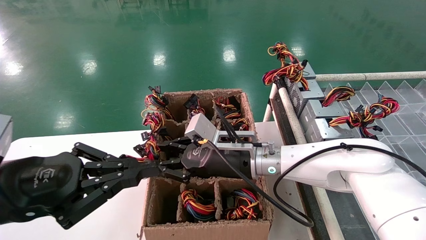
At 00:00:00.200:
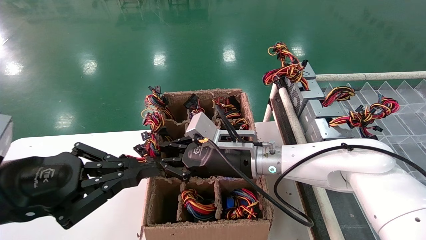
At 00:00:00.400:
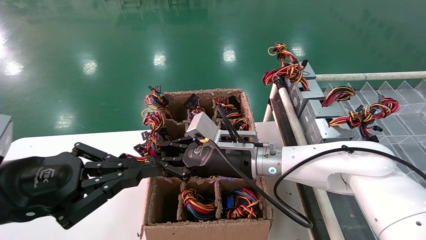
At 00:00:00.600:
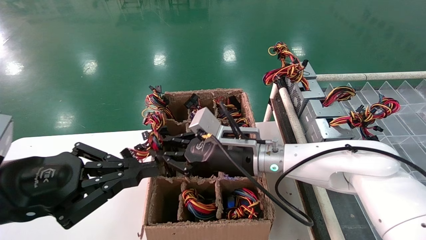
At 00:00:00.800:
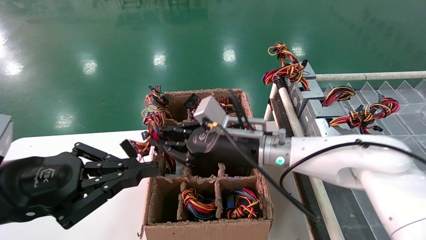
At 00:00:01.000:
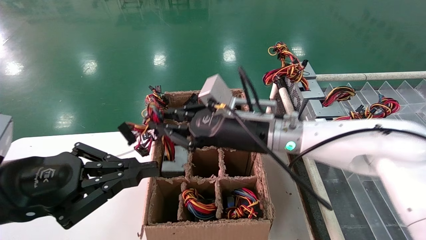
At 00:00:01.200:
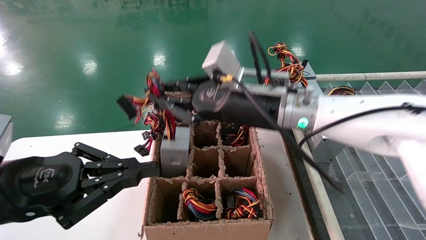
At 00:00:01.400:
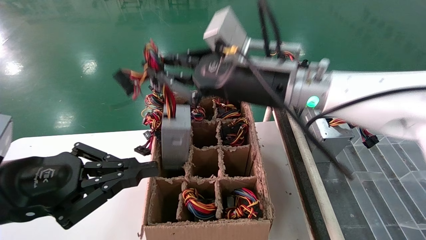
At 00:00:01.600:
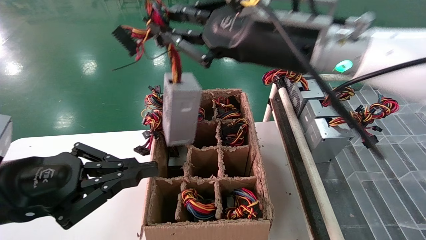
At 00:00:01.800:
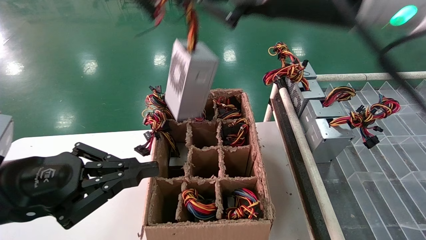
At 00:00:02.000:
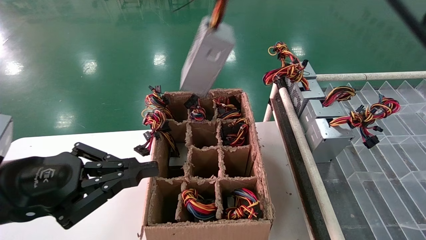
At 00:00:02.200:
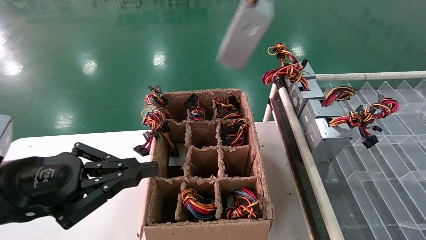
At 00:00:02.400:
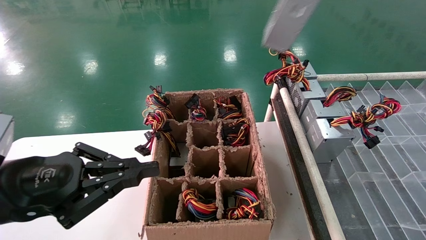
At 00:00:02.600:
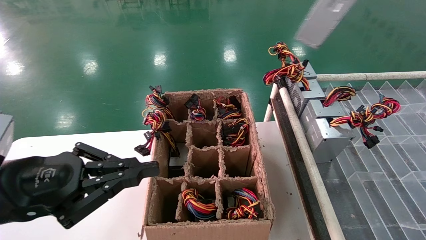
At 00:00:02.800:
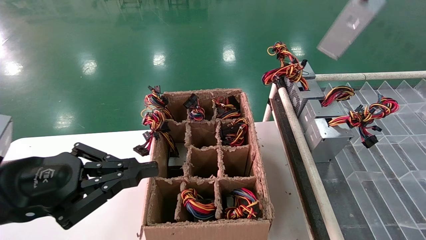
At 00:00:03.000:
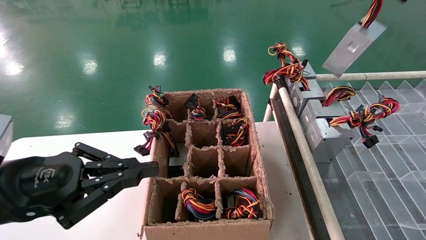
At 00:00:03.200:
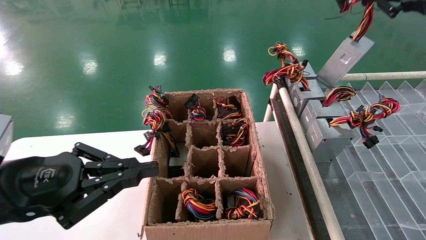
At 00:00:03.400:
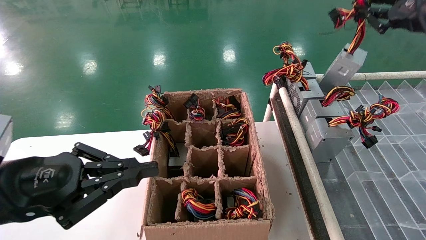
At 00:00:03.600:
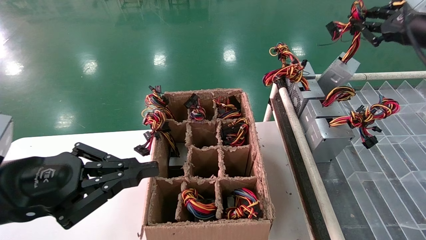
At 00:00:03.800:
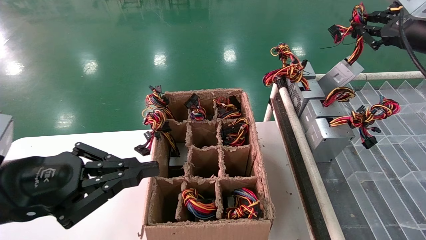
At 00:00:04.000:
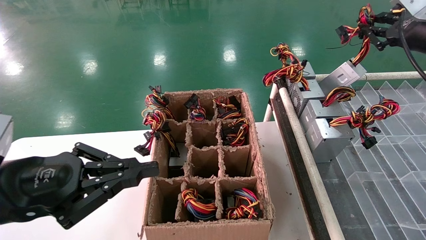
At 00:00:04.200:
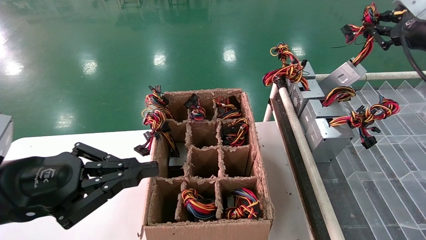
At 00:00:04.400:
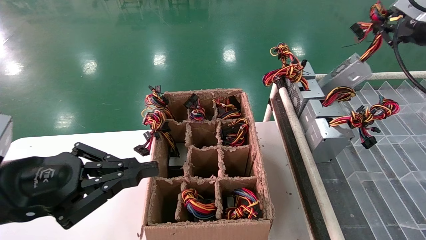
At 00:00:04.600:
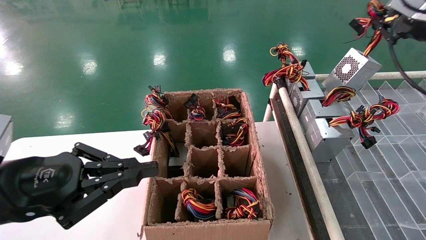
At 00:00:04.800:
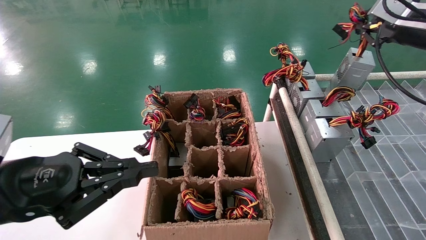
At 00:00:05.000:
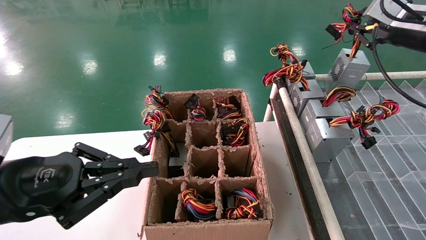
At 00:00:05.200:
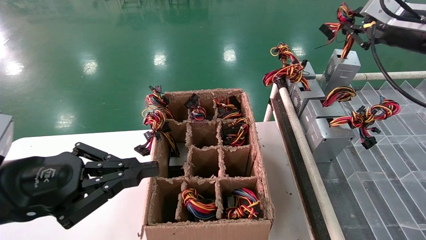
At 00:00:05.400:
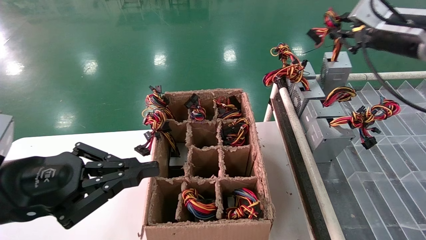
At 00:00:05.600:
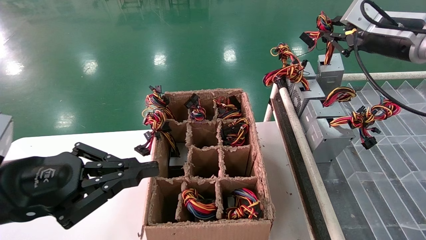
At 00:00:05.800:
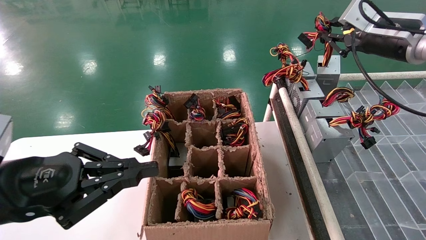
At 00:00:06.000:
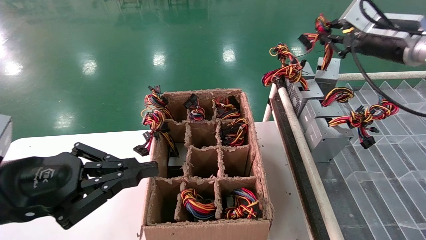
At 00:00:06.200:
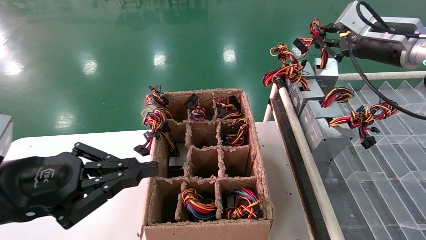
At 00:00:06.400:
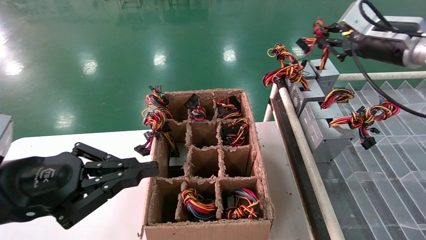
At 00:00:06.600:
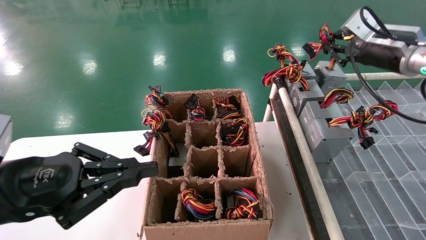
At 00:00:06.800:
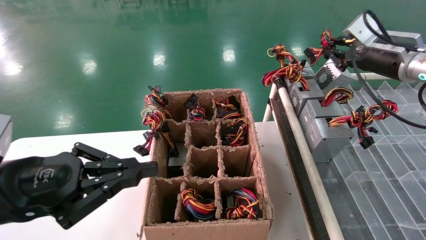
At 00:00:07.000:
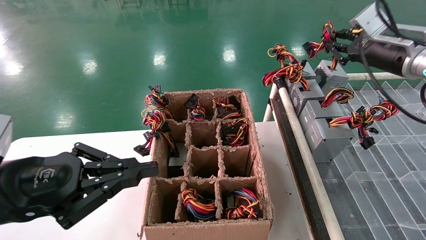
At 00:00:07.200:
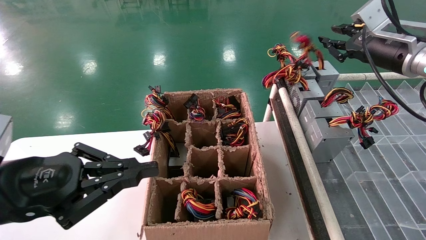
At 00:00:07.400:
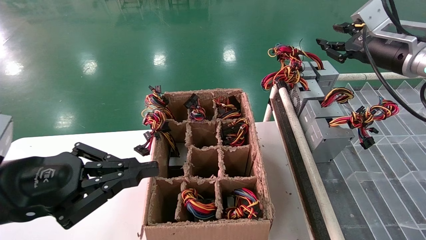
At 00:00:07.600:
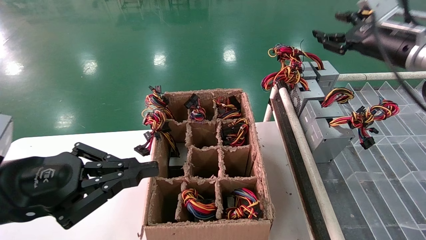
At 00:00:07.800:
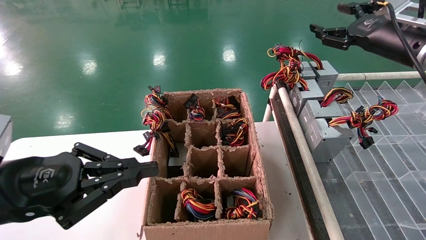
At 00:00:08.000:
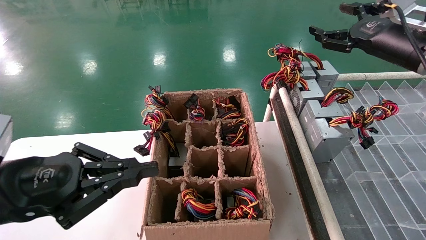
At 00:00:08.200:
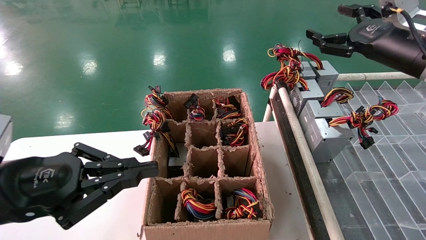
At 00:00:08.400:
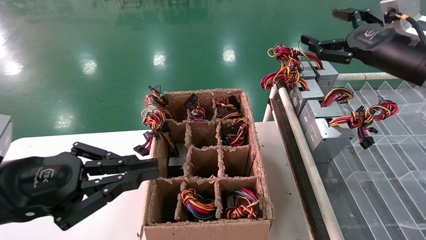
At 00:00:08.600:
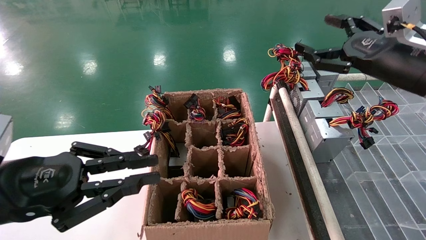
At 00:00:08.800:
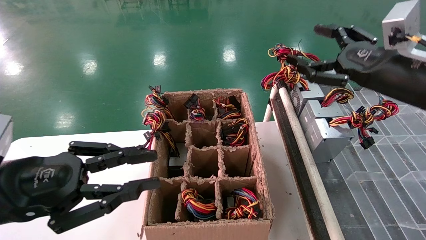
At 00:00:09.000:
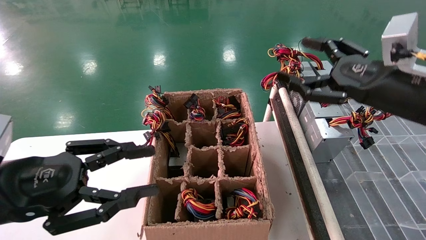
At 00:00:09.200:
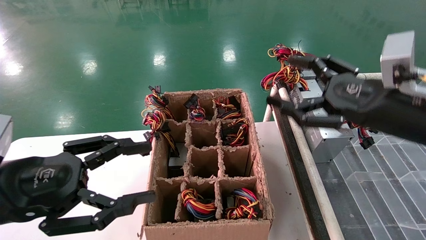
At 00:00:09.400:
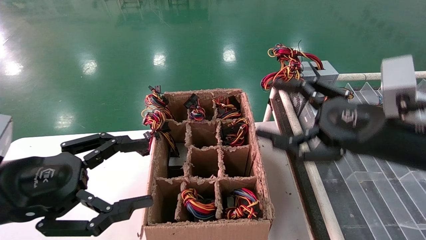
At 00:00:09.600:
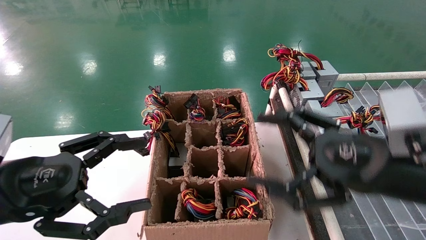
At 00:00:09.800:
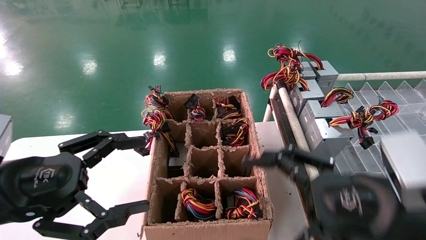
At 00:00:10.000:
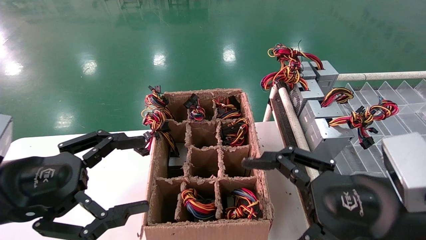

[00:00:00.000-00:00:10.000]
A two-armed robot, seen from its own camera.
Step, 00:00:00.600 to 00:00:07.600: Place the main unit power supply in the designated area.
00:00:00.000 to 00:00:01.400: The right gripper travels upward by roughly 15 cm.
00:00:01.400 to 00:00:02.800: The right gripper moves to the right and upward, roughly 30 cm.
00:00:02.800 to 00:00:04.200: The right gripper moves downward, forward and to the right, about 15 cm.
00:00:04.200 to 00:00:05.800: The right gripper goes roughly 5 cm to the left.
00:00:05.800 to 00:00:07.200: There are only small adjustments of the grippers.
00:00:07.200 to 00:00:08.600: The right gripper goes approximately 10 cm backward, and opens its fingers.
00:00:08.600 to 00:00:10.000: The right gripper moves backward, downward and to the left, approximately 20 cm. The left gripper opens.

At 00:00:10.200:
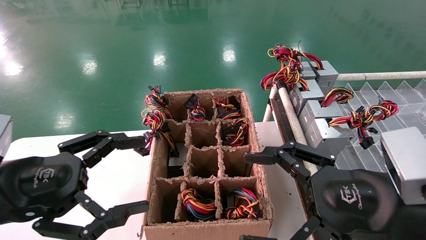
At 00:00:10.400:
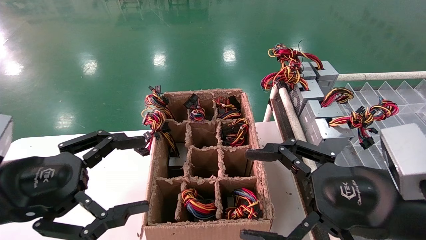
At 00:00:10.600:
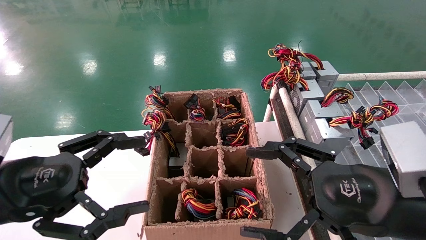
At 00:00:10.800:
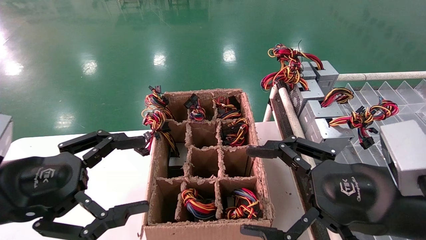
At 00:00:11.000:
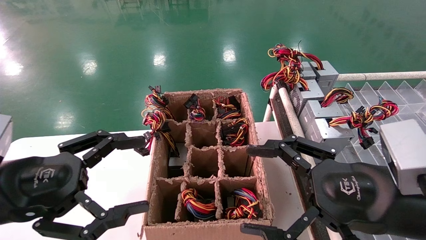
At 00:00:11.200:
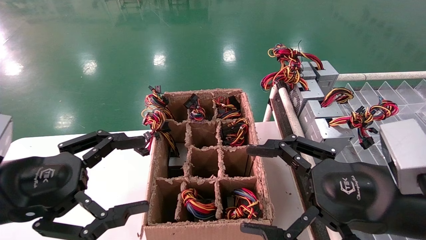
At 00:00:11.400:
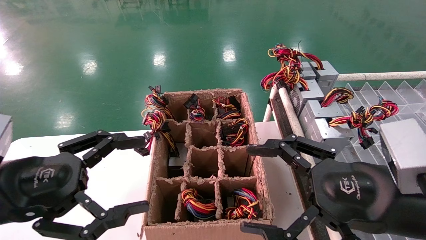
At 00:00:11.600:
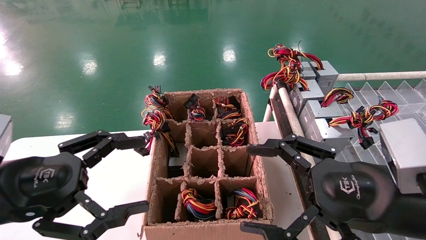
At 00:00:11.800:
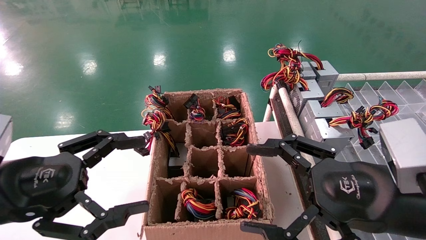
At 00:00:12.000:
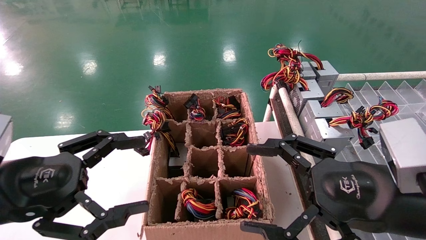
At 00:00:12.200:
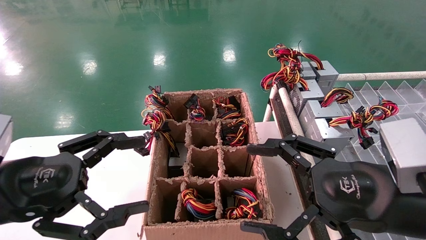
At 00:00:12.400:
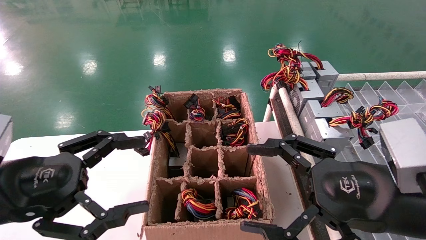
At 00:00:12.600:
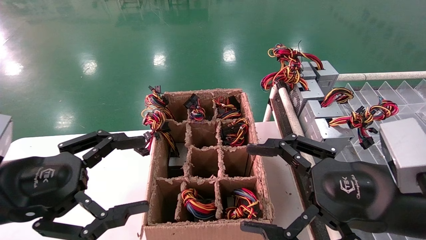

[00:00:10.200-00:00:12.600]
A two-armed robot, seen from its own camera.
00:00:10.200 to 00:00:12.600: Both grippers stay put.
